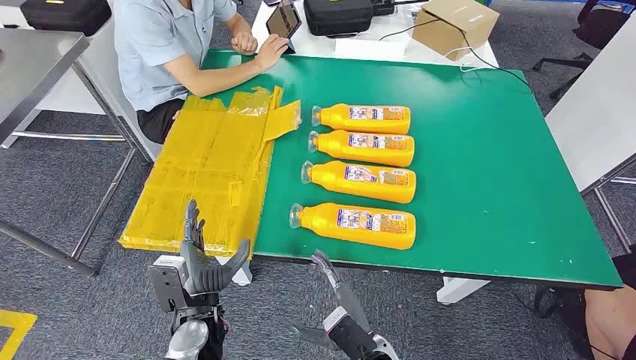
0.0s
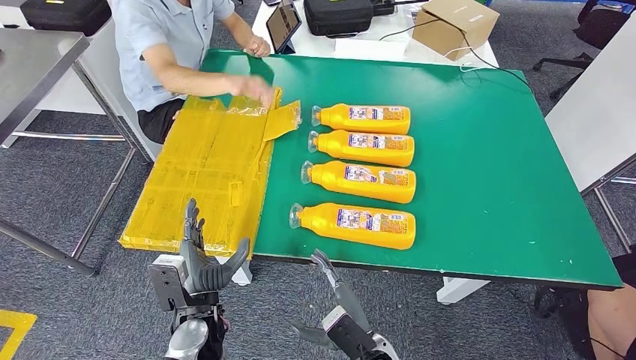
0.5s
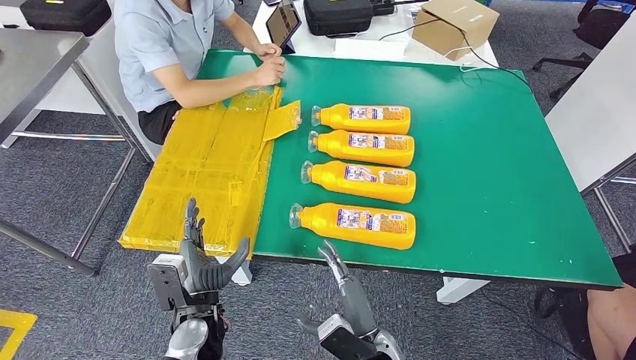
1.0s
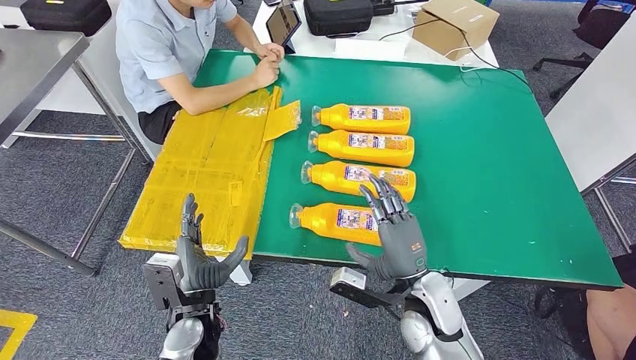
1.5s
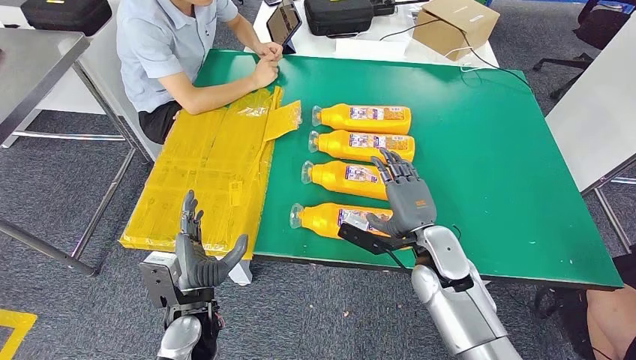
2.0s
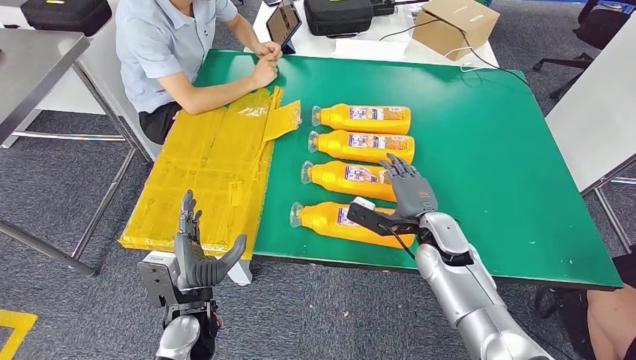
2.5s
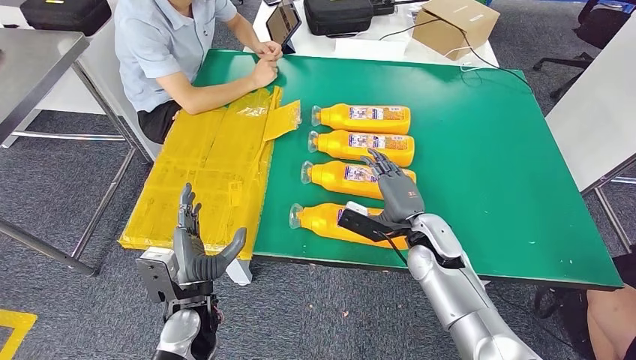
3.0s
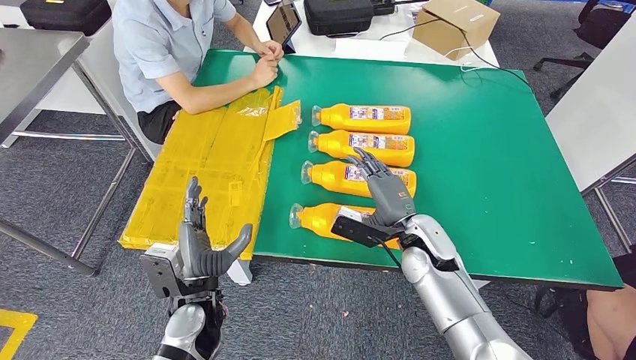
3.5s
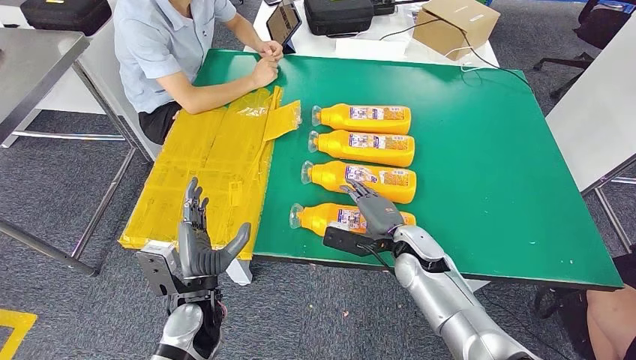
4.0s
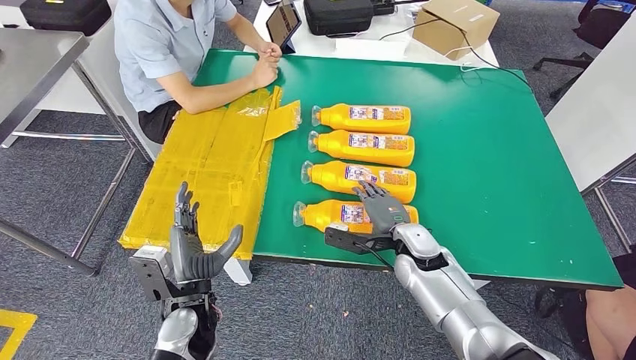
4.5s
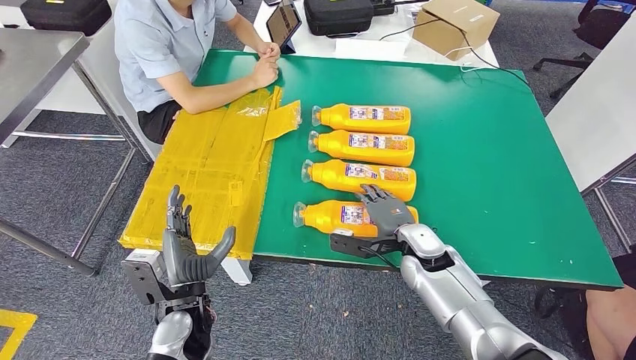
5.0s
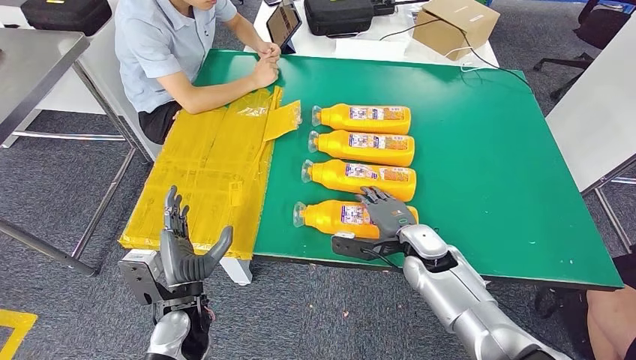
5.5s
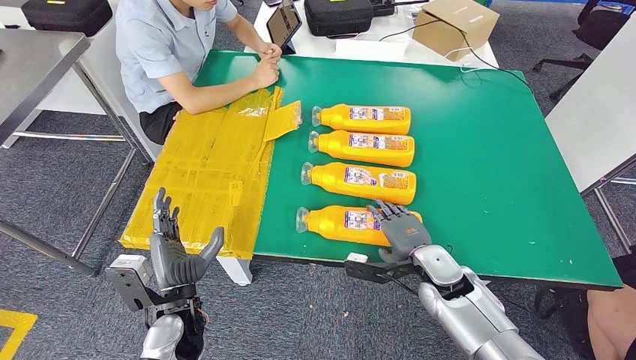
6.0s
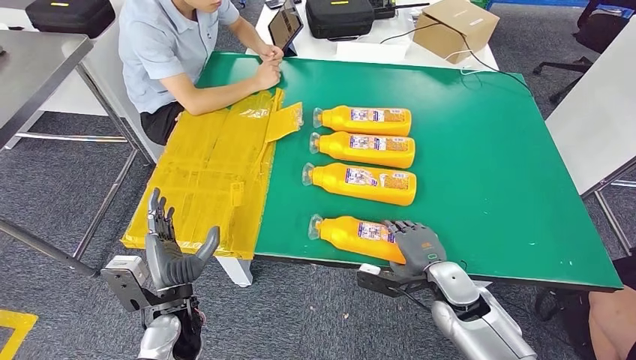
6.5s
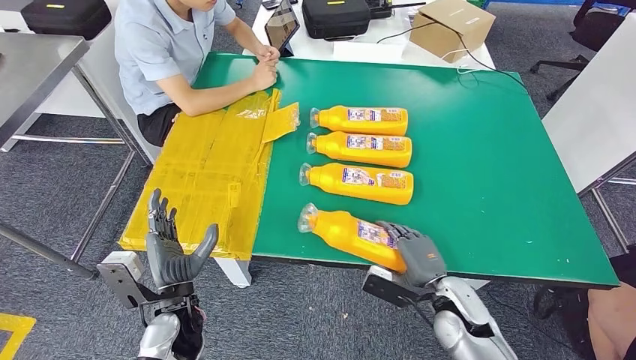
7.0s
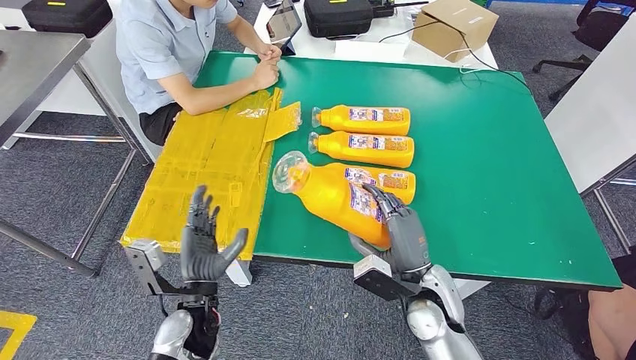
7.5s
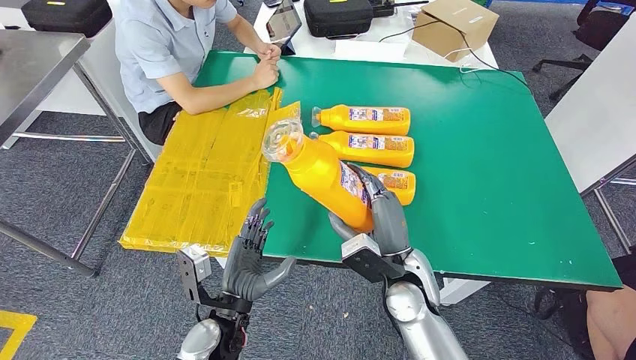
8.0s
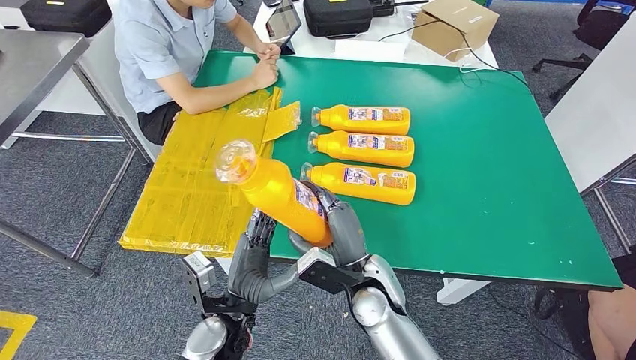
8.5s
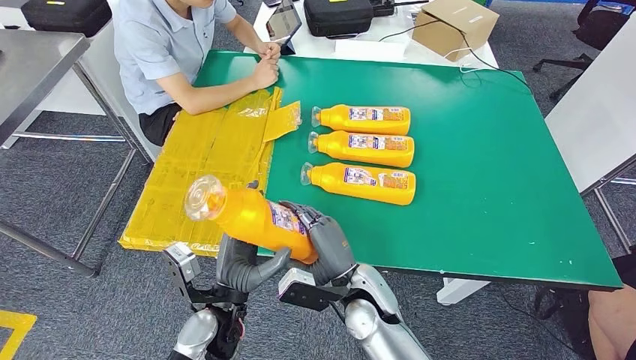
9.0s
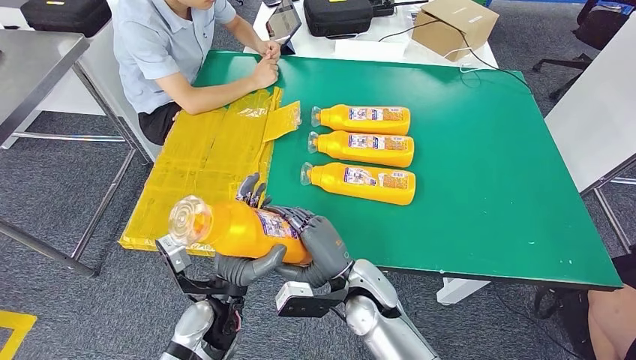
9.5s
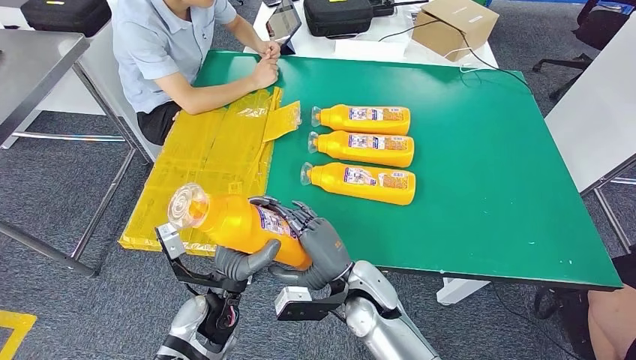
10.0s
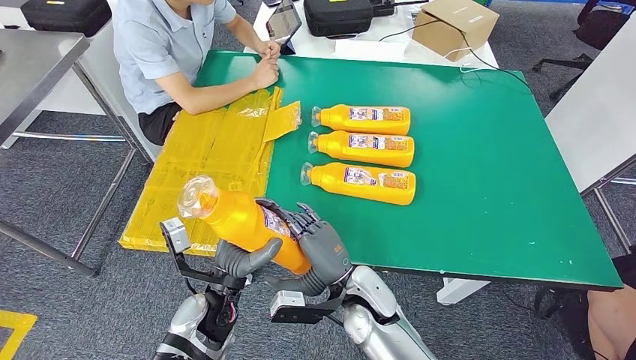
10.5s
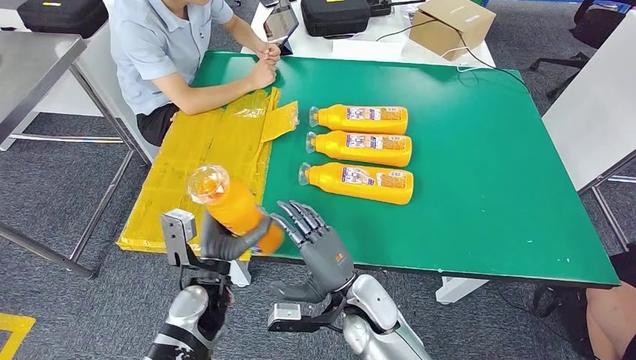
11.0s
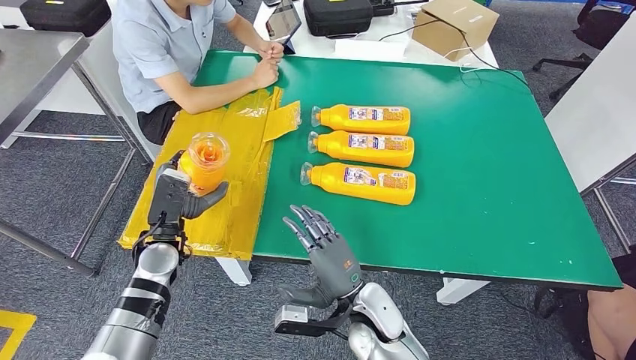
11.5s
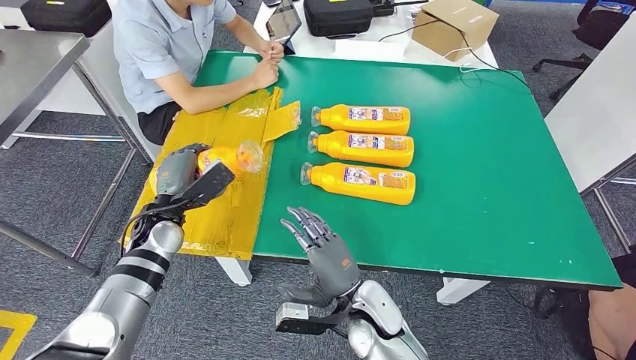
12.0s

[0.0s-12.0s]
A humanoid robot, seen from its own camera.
Step, 0.0s to 7.0s: Take the fast-moving consumer goods bottle from the table.
2.0s to 4.0s: The right hand moves roughly 5 cm.
4.0s to 6.0s: The right hand ends up approximately 5 cm from where it was.
6.0s to 8.0s: The right hand goes approximately 10 cm to the left and upward. The left hand travels to the right by roughly 5 cm.
8.0s to 10.0s: The right hand shifts approximately 5 cm to the left.
10.0s to 12.0s: The left hand shifts about 20 cm forward and to the left.

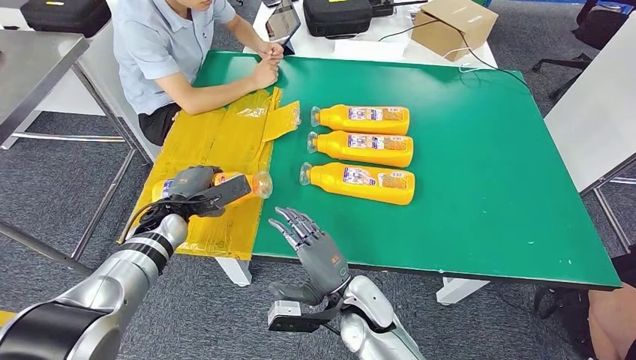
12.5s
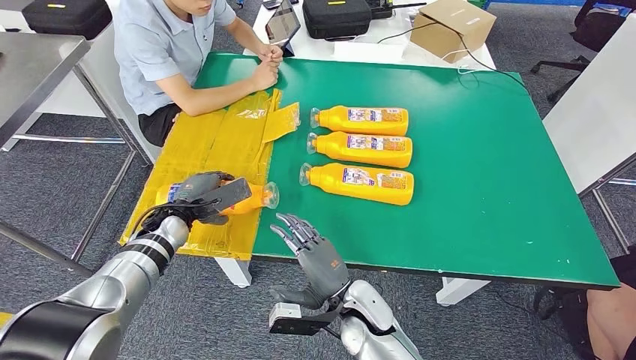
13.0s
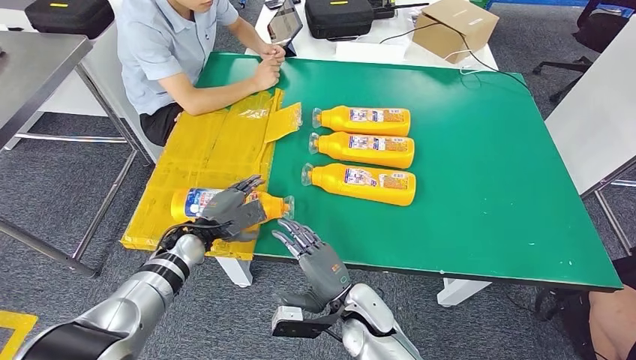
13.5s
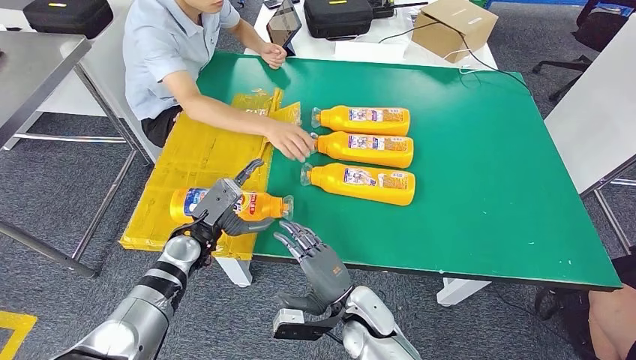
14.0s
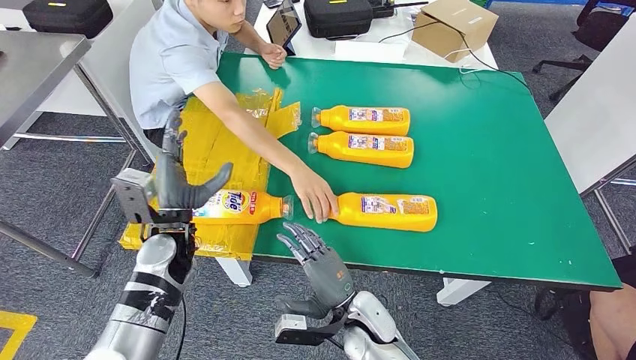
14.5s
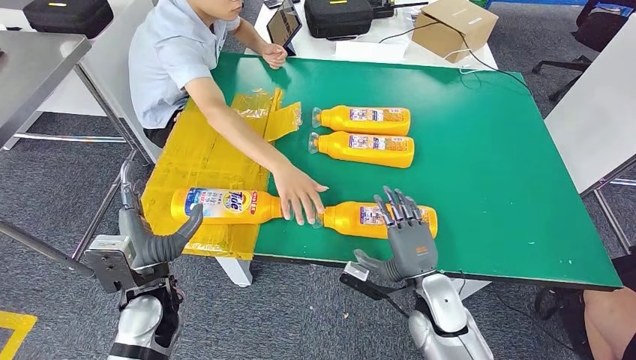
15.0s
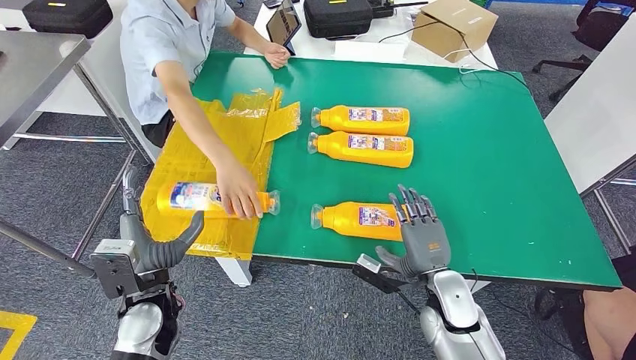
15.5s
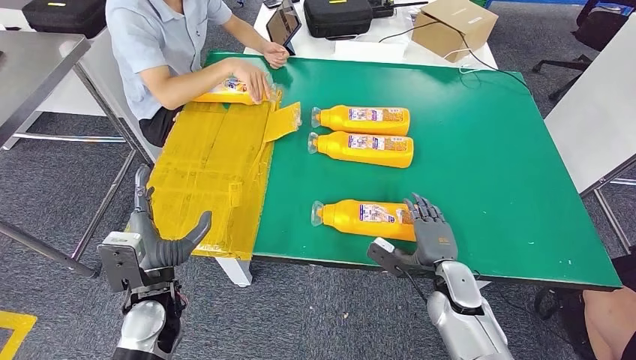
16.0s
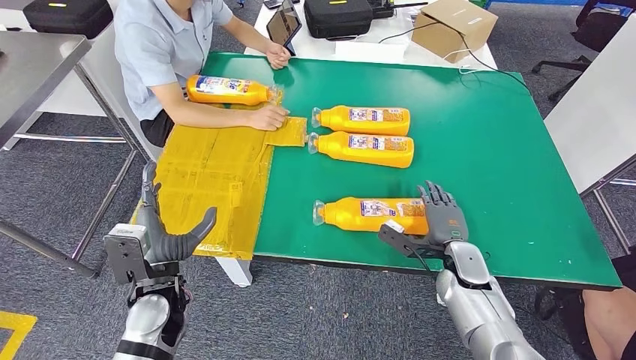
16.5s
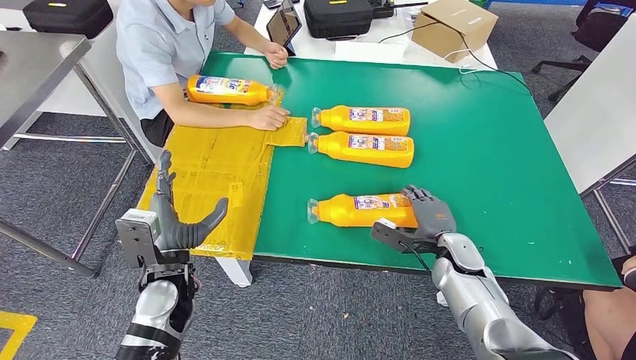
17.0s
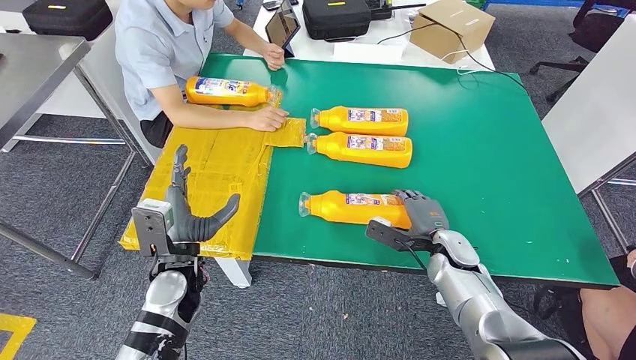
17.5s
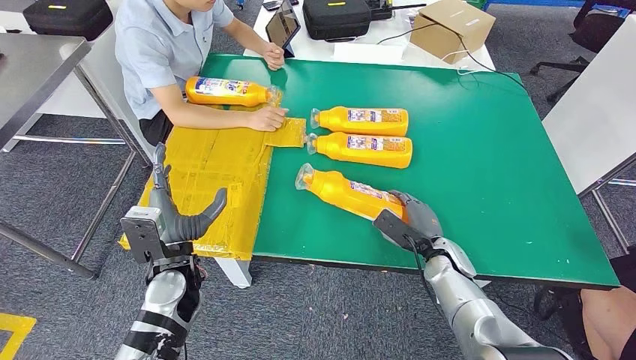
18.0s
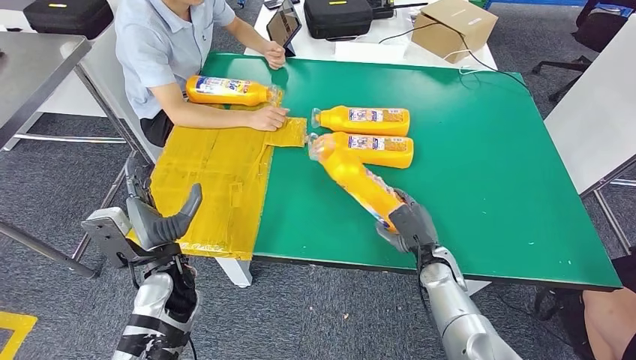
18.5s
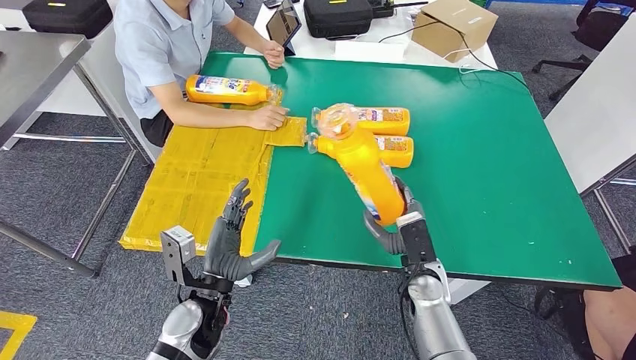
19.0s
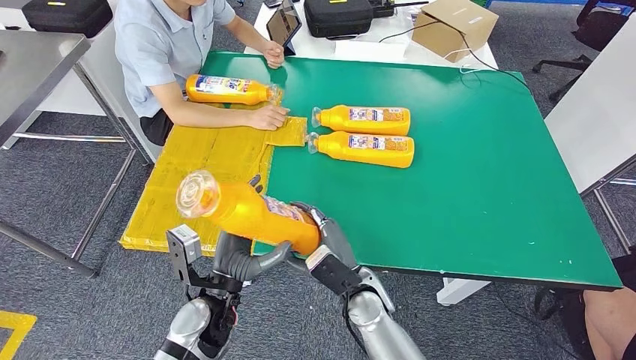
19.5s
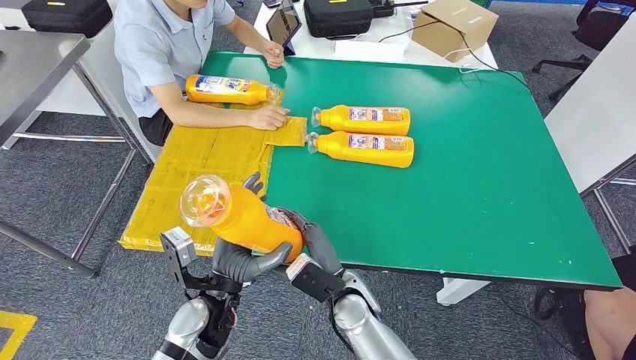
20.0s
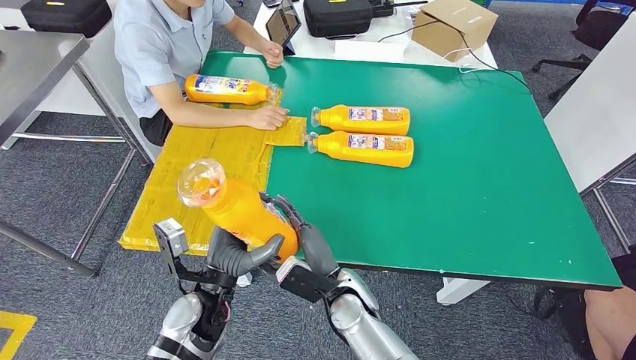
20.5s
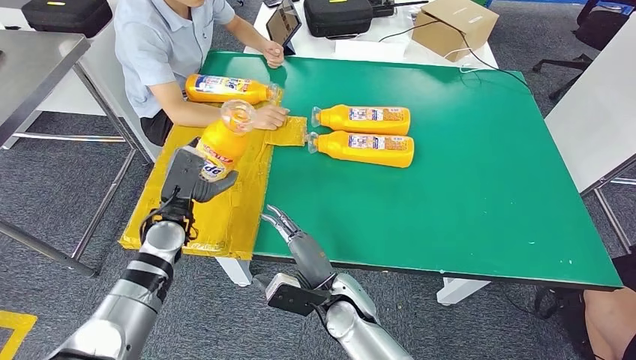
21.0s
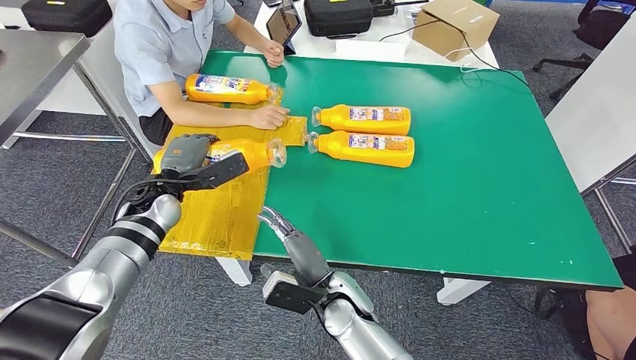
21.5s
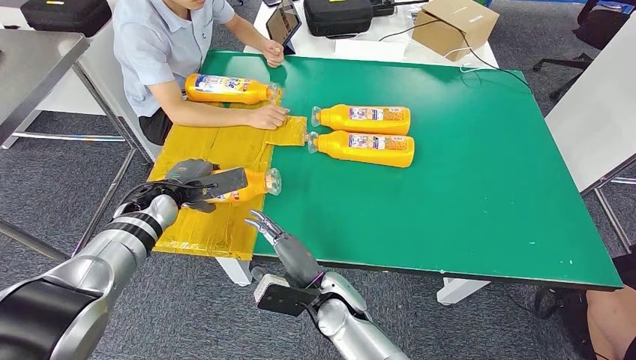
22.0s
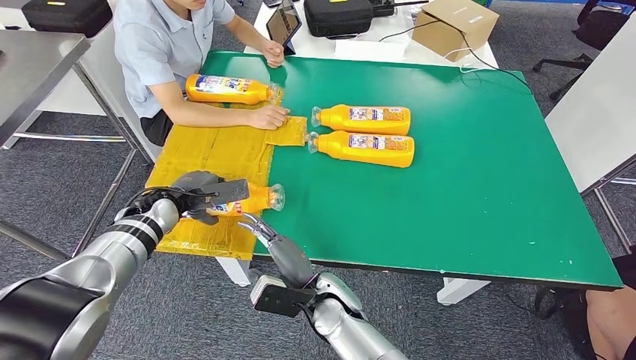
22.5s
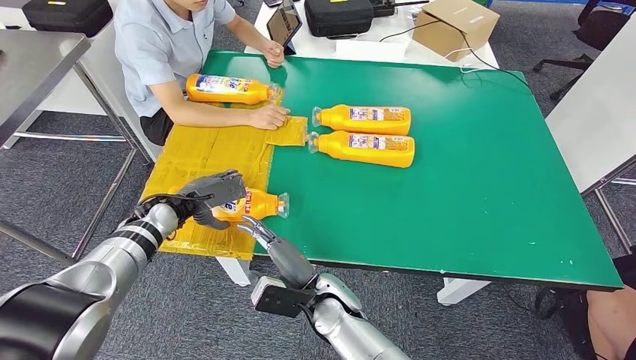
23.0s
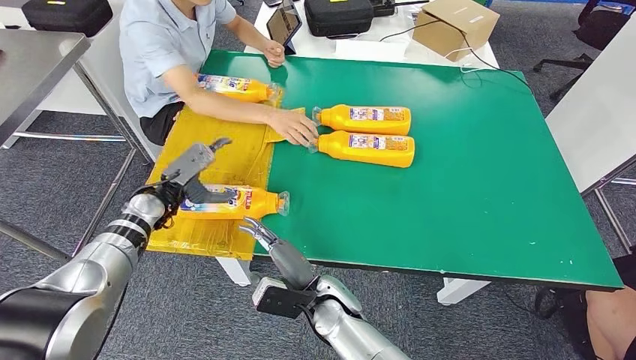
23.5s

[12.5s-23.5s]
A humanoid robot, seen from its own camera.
Step, 14.5s to 19.0s: Pick up the fast-moving consumer goods bottle from the table.
Step, 19.5s to 23.0s: Flip the fast-moving consumer goods bottle to the front side.
20.0s to 21.5s: The left hand is displaced forward and to the left by roughly 20 cm.
